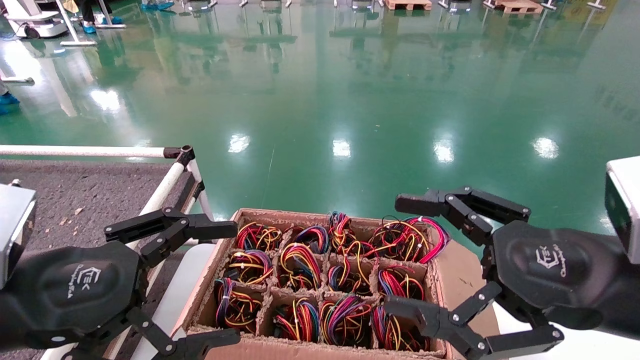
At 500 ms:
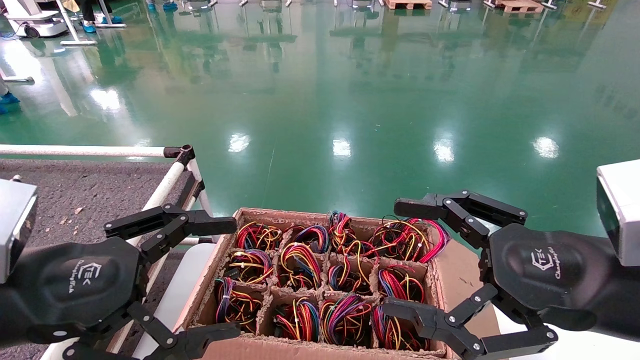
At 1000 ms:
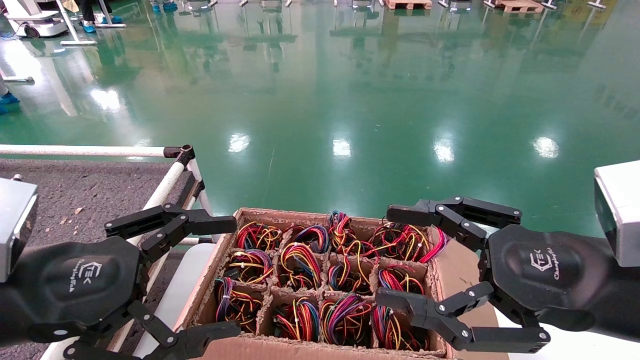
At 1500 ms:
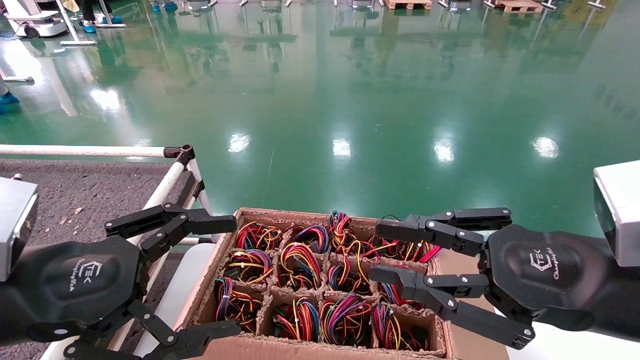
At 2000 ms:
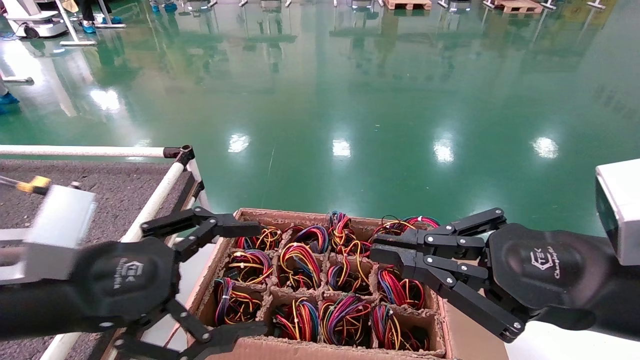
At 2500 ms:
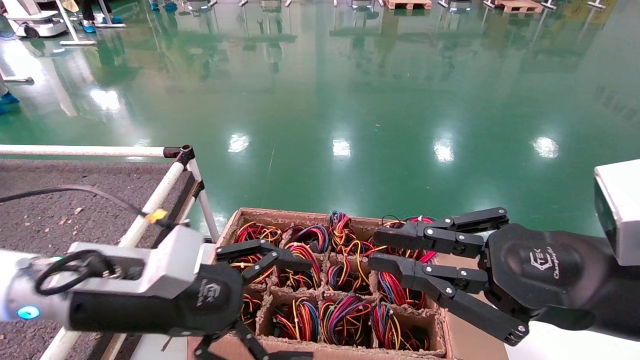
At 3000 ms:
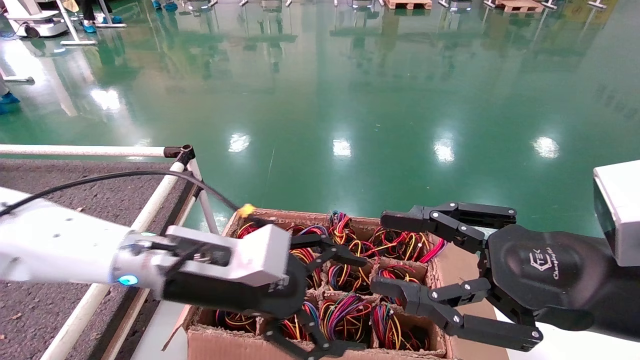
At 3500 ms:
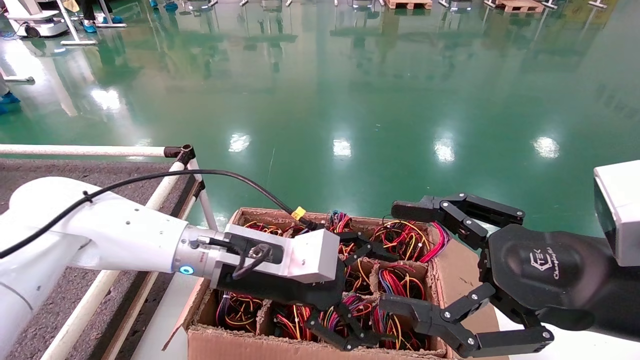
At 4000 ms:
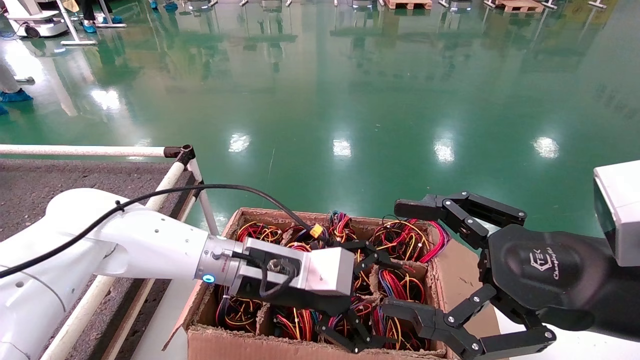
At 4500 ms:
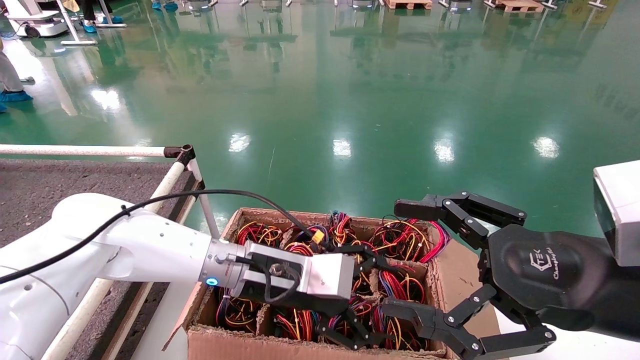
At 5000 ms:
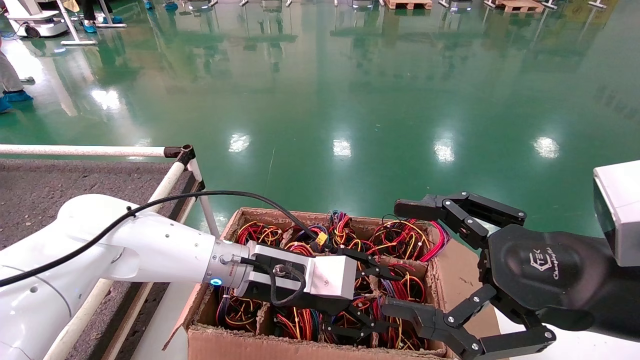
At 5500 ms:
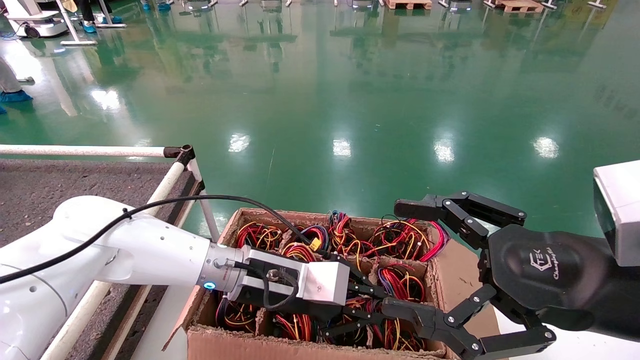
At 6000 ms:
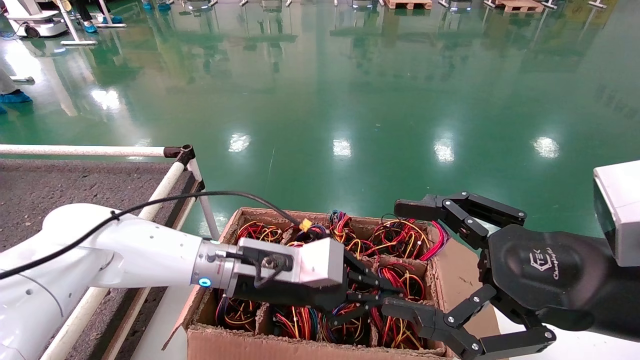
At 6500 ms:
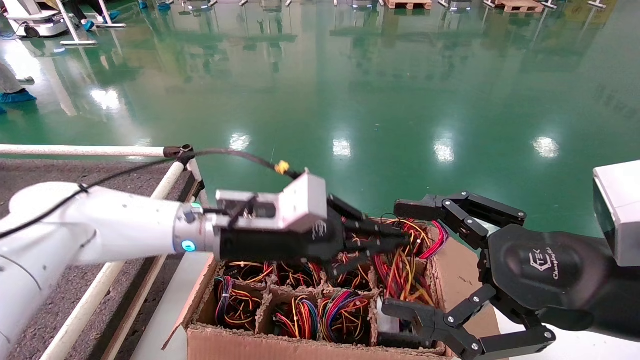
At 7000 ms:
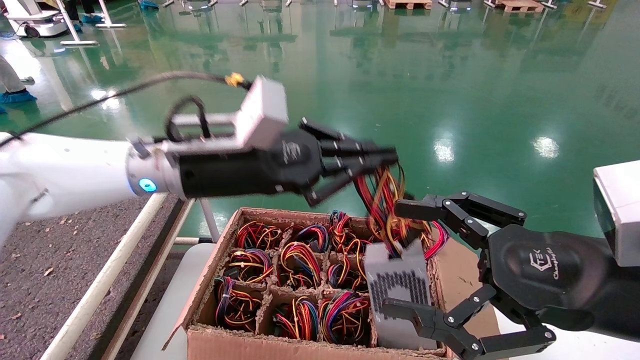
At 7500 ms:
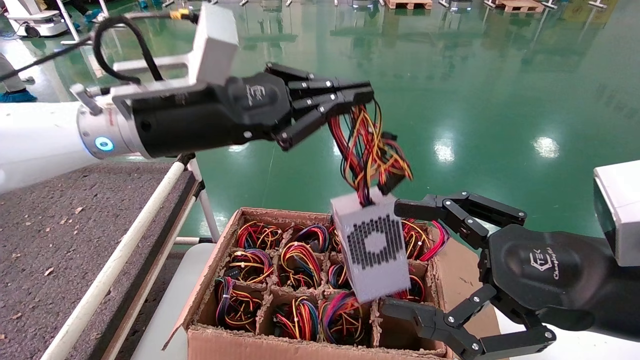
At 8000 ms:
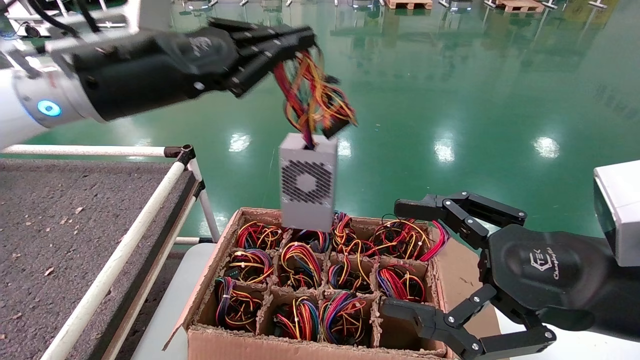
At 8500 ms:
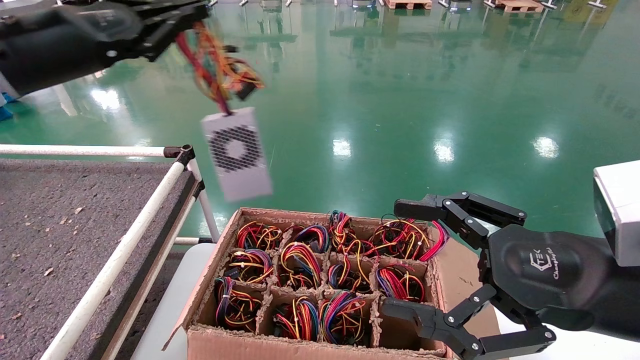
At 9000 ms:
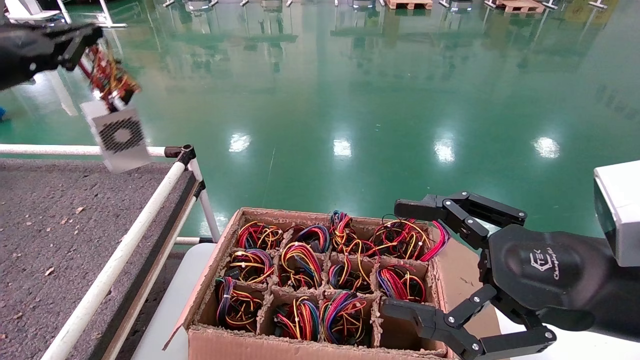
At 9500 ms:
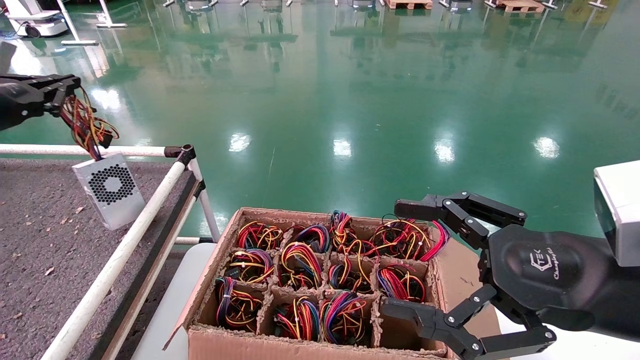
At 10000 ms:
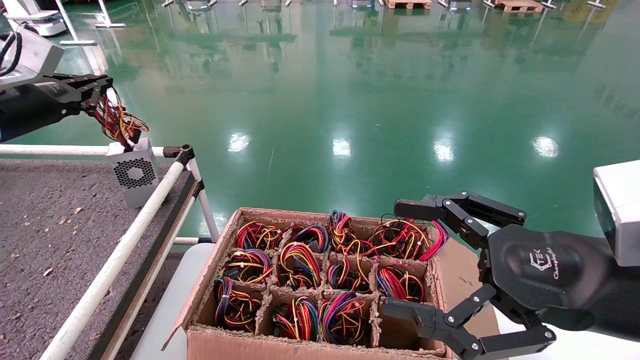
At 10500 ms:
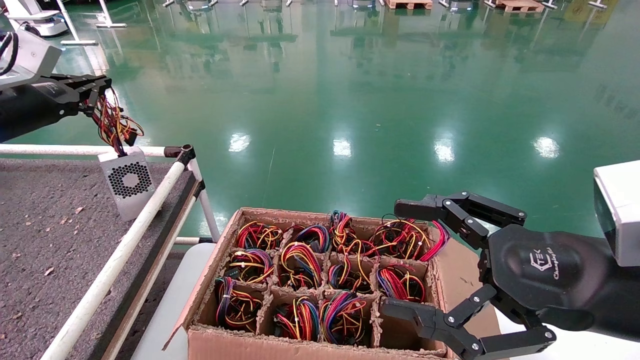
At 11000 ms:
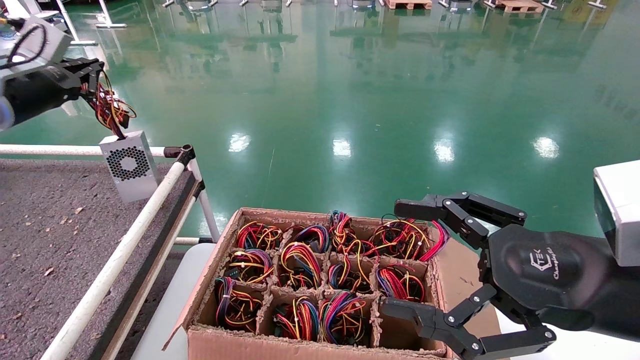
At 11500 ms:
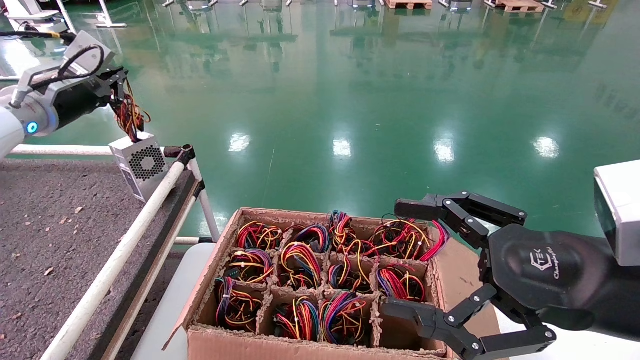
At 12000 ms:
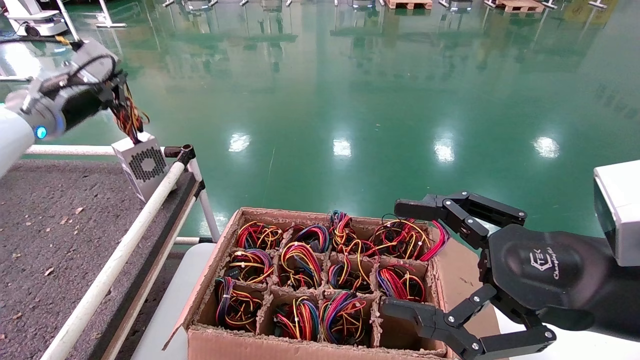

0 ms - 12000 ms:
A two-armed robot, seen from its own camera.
Step, 2500 ms - 5500 ms: Grab and lift the power supply from the large box.
0 ms - 2000 ms: The right gripper closes up.
2000 ms - 4000 ms: The right gripper opens up. The left gripper travels to the right and forward by about 20 cm.
4000 ms - 6000 ms: The left gripper closes.
6000 ms - 8000 ms: The left gripper shifts approximately 25 cm upward and to the left.
8000 ms - 10000 ms: The left gripper goes about 20 cm to the left.
10000 ms - 12000 ms: The left gripper is displaced to the right and forward by about 5 cm.

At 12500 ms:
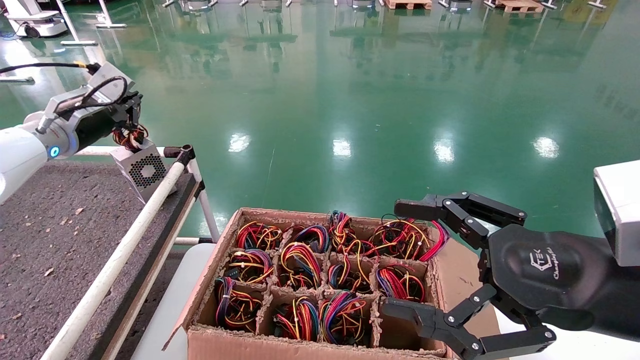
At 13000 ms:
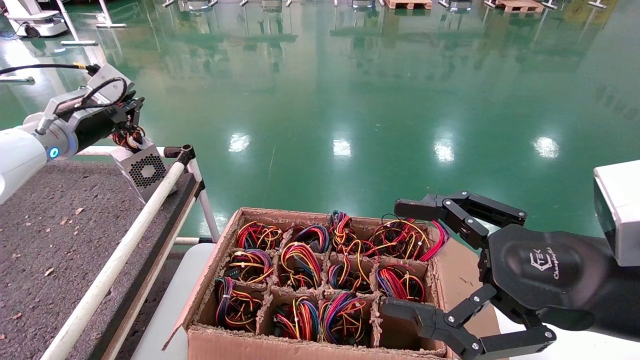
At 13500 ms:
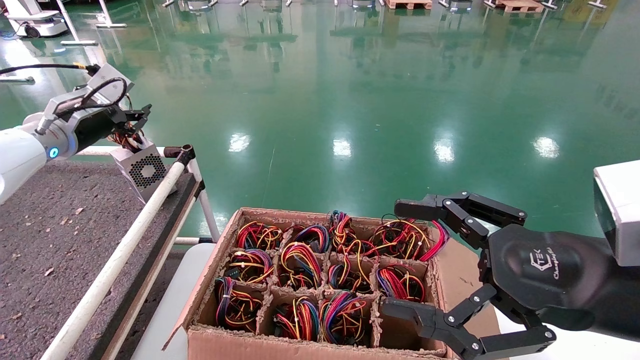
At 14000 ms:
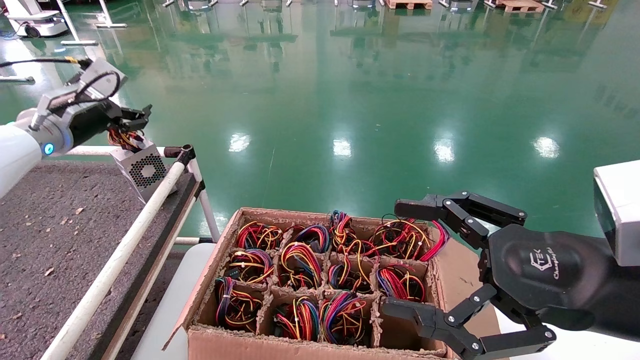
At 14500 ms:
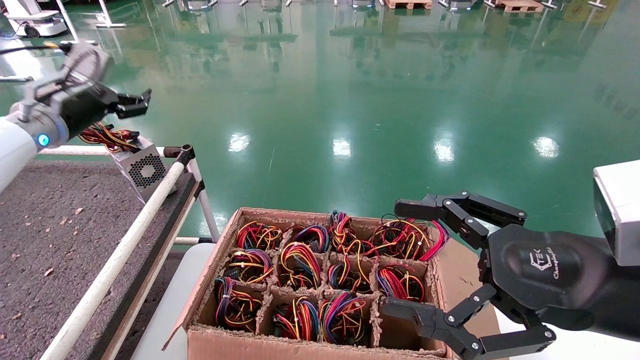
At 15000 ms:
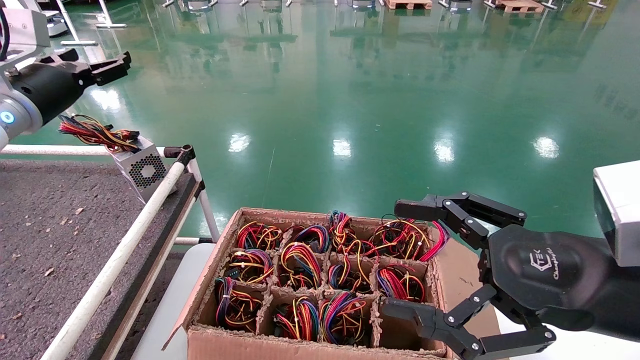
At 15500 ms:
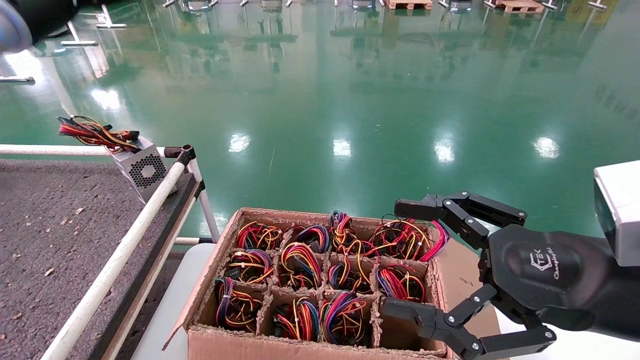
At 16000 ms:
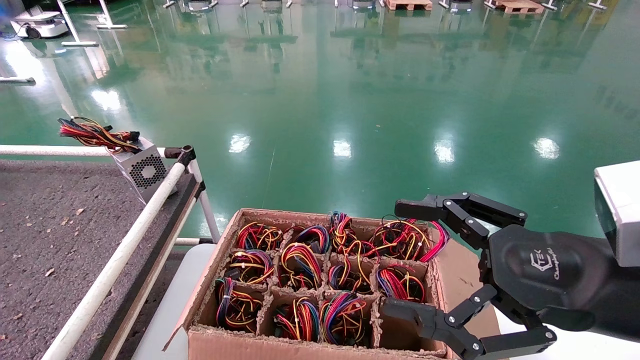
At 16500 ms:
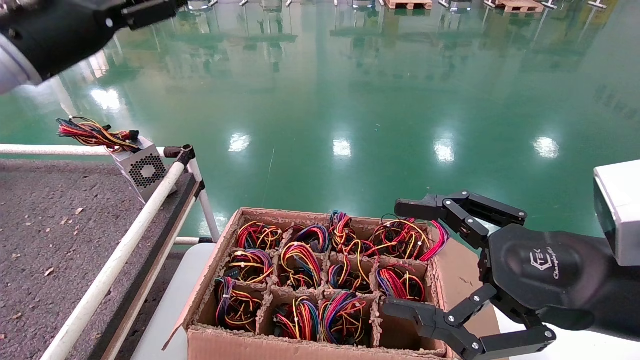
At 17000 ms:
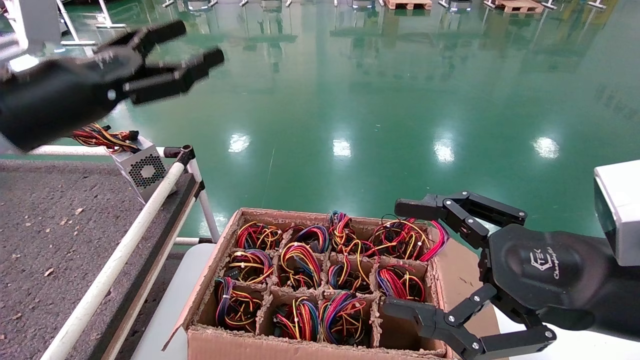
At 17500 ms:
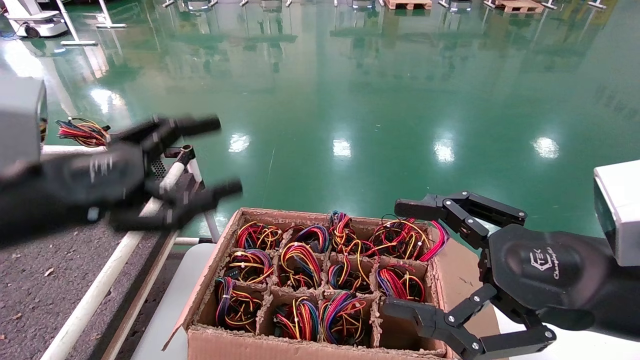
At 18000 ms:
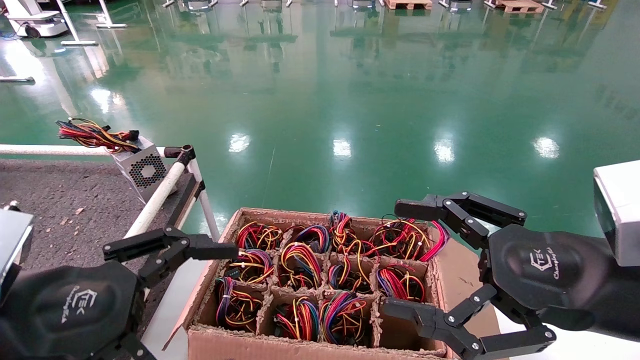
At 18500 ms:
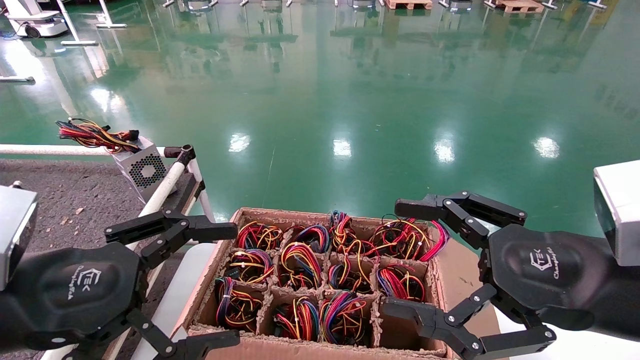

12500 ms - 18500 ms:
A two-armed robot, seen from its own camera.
12500 ms - 14500 ms: The left gripper opens up.
14500 ms - 16500 ms: The left gripper shifts some 15 cm backward, upward and to the right.
16500 ms - 18500 ms: The left gripper is displaced backward and downward by some 25 cm.
